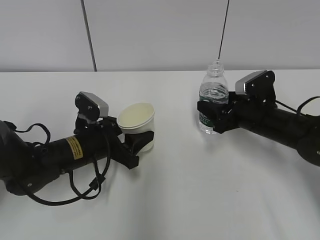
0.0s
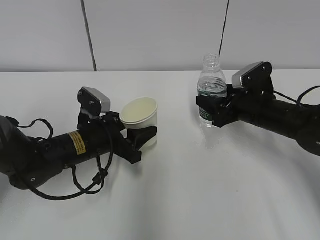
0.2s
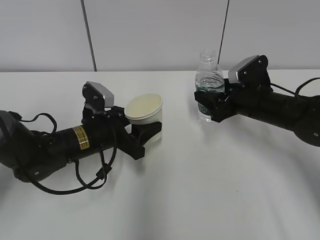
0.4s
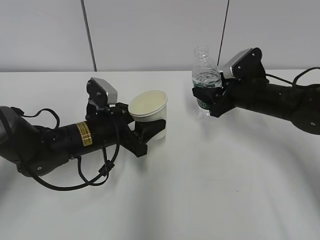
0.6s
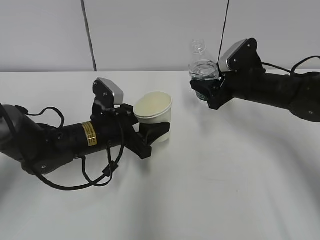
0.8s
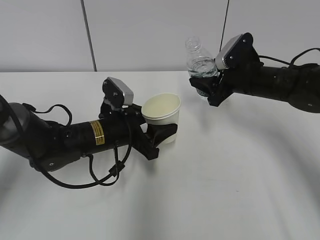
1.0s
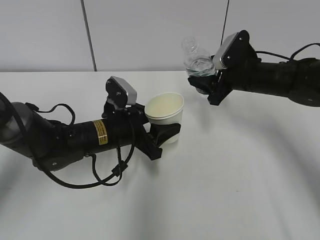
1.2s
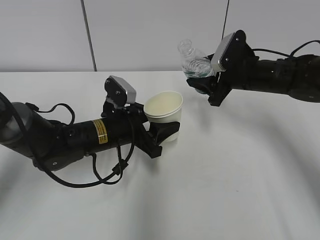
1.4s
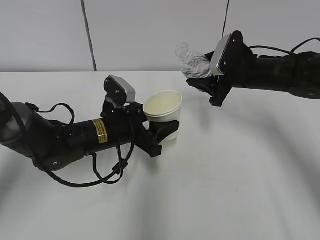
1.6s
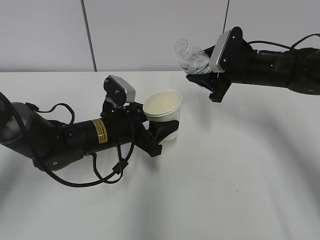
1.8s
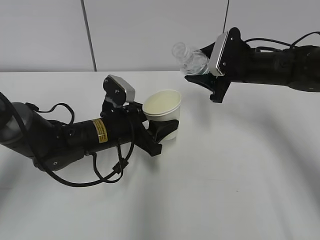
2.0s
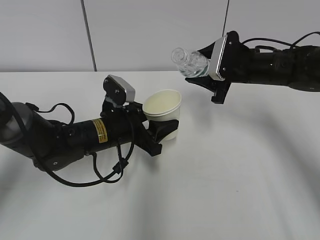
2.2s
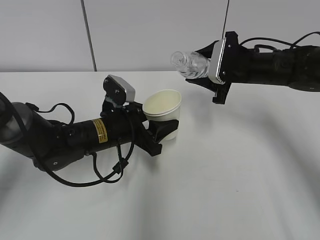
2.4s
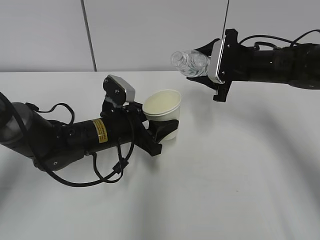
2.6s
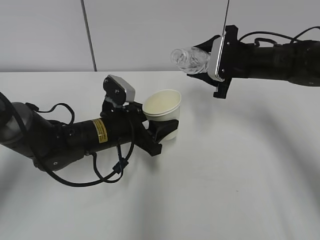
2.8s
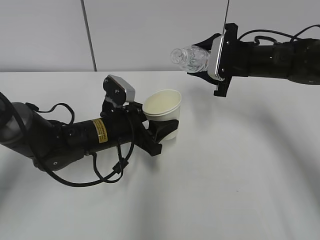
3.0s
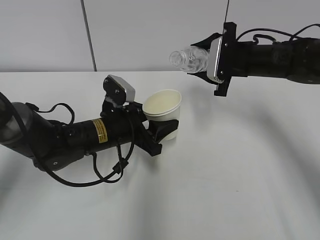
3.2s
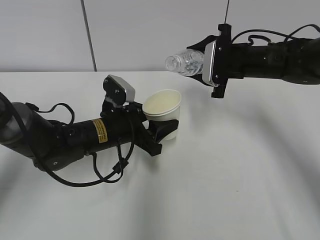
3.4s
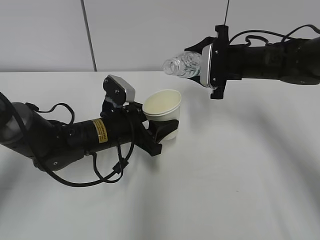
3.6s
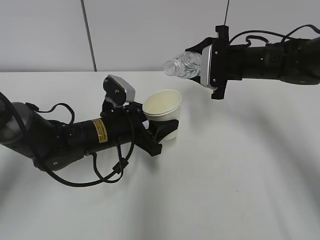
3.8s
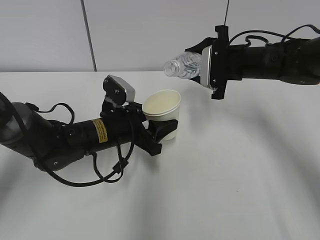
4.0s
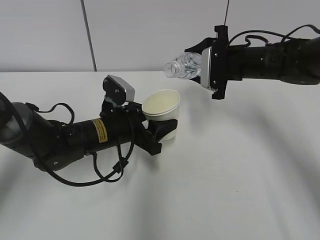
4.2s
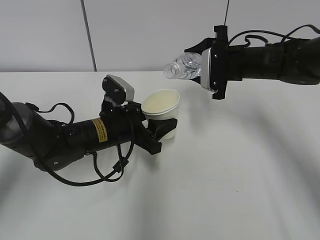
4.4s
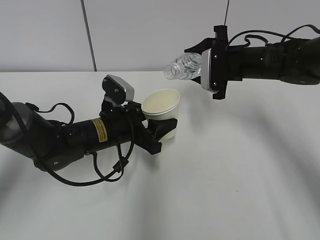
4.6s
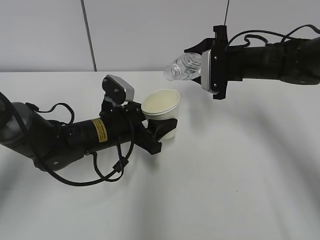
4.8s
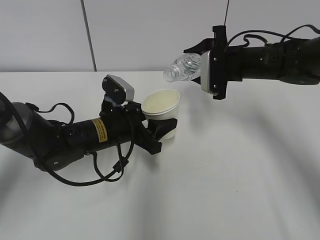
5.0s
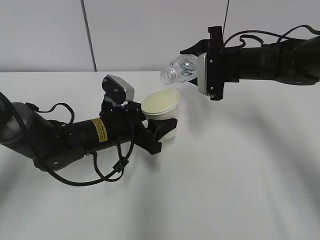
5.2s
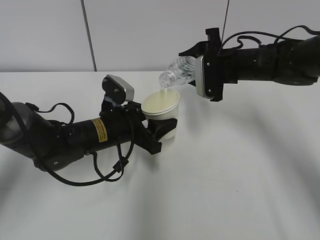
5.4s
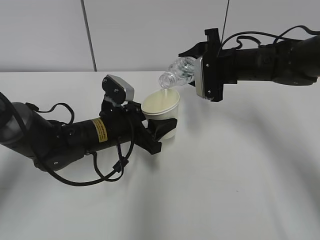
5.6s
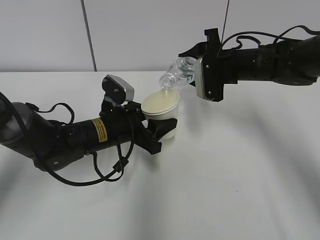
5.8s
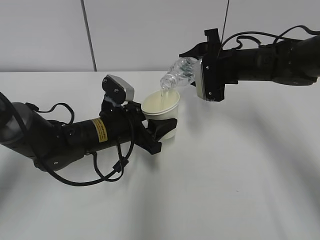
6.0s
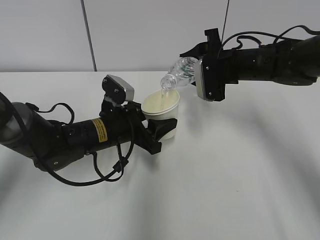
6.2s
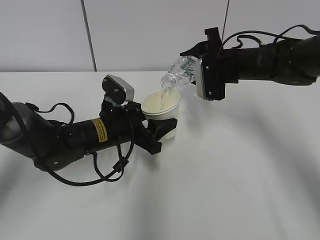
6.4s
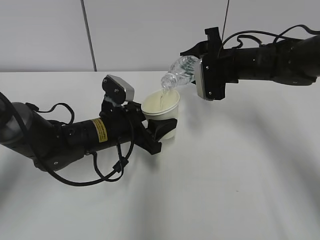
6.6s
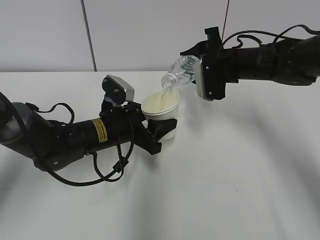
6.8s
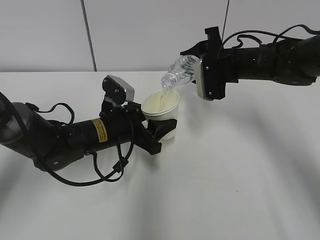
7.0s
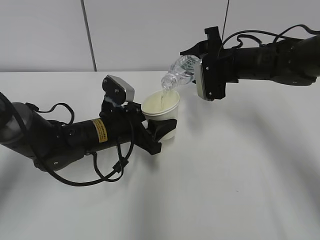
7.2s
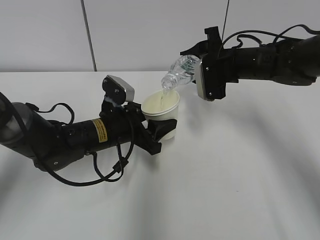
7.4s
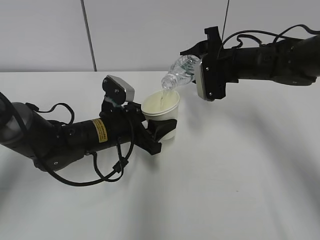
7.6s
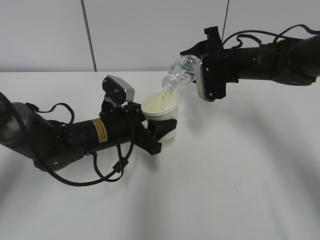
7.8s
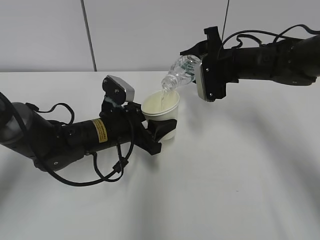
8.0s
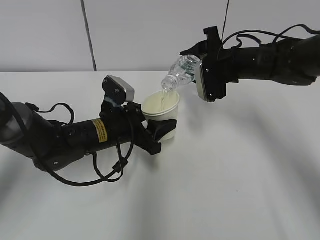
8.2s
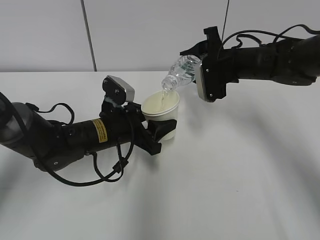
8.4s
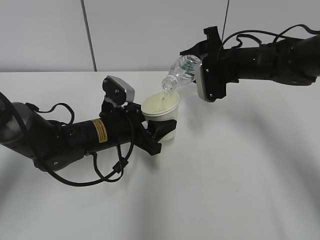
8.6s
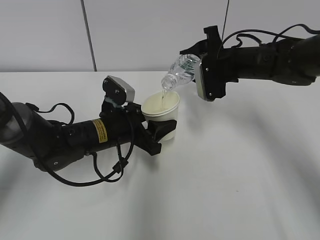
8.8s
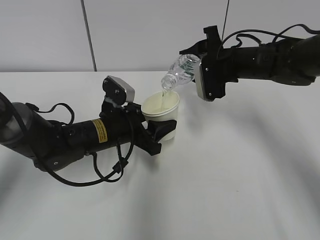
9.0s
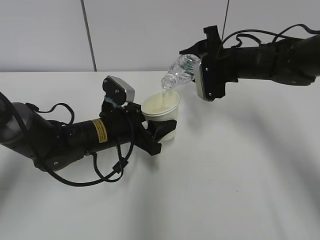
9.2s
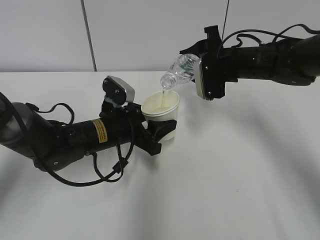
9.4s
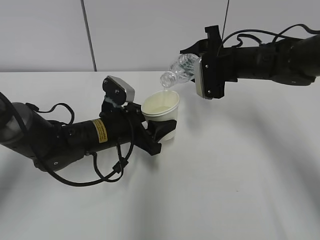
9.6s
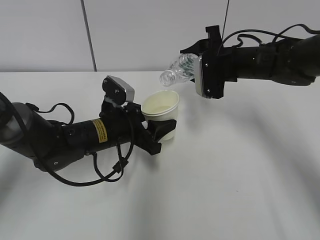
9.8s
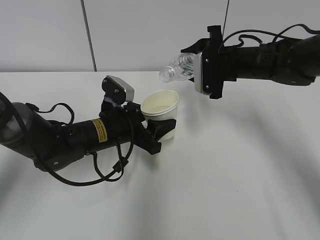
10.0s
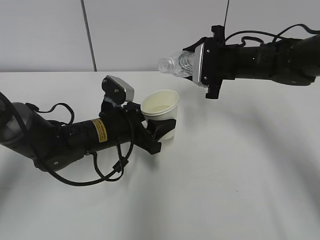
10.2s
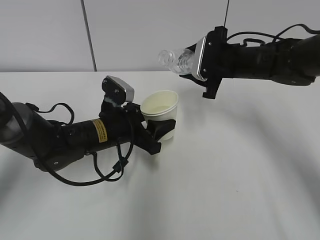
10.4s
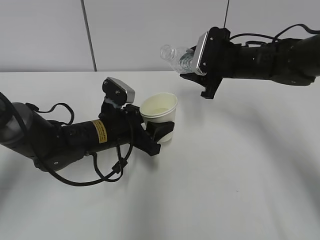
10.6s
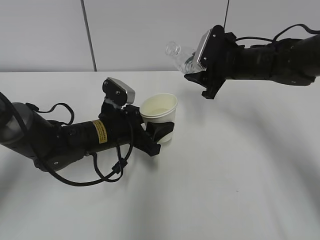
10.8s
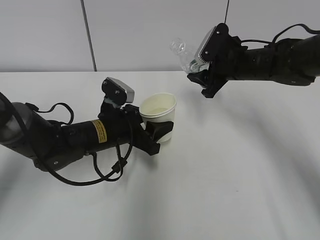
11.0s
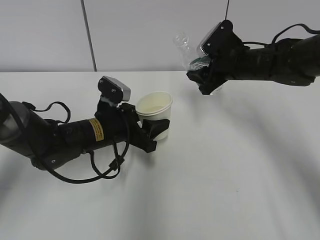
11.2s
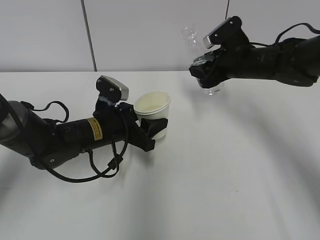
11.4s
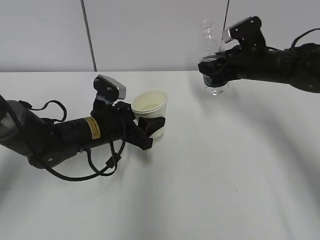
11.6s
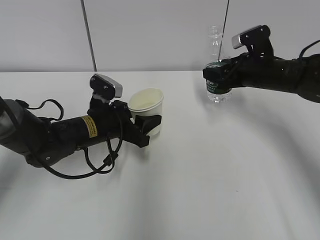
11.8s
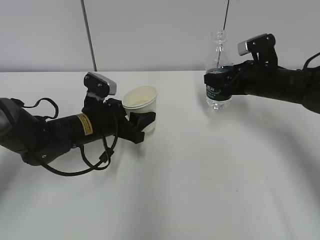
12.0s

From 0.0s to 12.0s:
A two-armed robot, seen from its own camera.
Step, from 0.0s to 2.2s: Lift the paper cup with the left hand.
Step, from 2.4s to 6.0s: Pour water with the right hand.
Step, from 6.2s to 7.6s: Collect water with the right hand.
Step, from 7.8s to 12.0s: Place the paper cup with the left hand.
From 0.0s to 1.6s: The left gripper changes place by about 5 cm, while the right gripper heads upward and forward, covering some 10 cm.
From 3.0s to 4.4s: There are only small adjustments of the grippers.
From 4.4s to 6.0s: The grippers make only small movements.
From 6.0s to 7.6s: The two grippers keep their place.
From 7.6s to 9.0s: Neither gripper changes place.
From 10.4s to 12.0s: The right gripper travels to the right by roughly 5 cm.

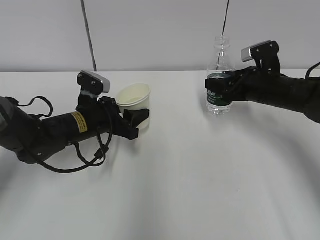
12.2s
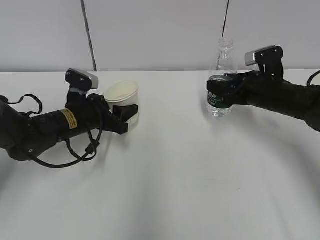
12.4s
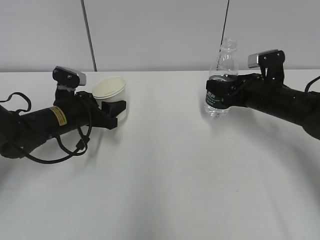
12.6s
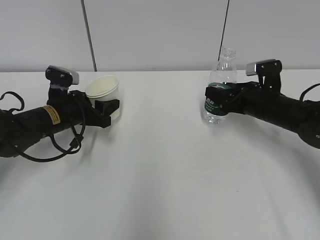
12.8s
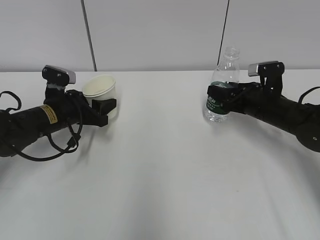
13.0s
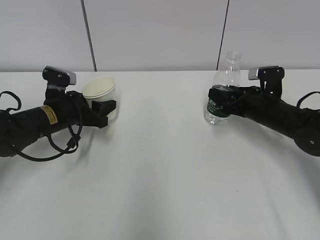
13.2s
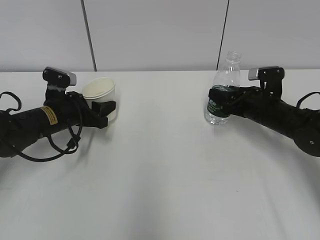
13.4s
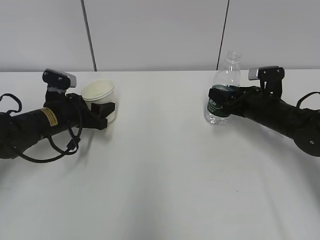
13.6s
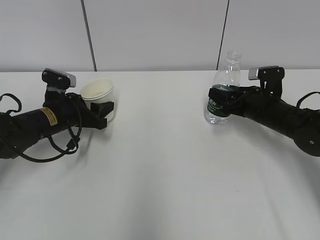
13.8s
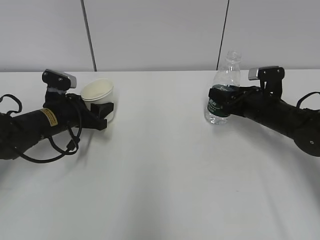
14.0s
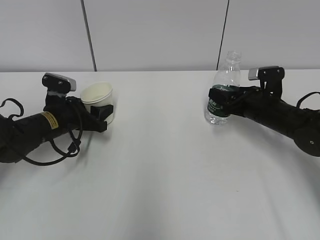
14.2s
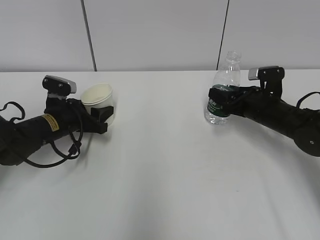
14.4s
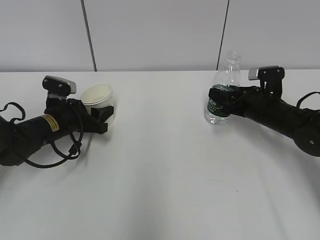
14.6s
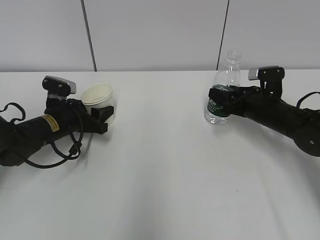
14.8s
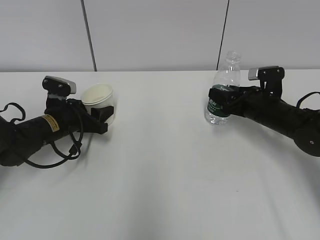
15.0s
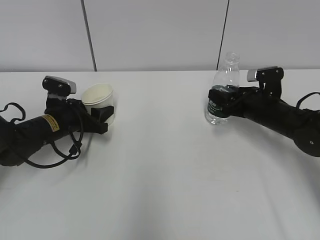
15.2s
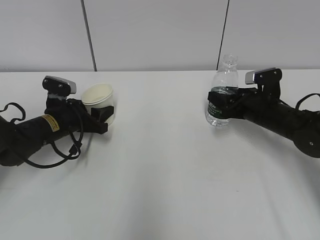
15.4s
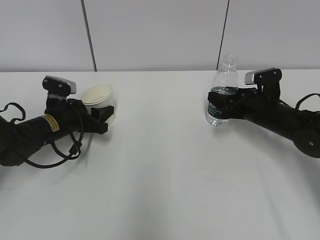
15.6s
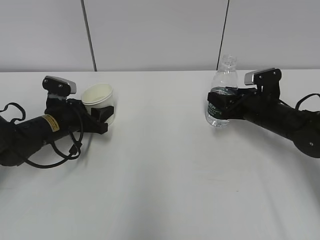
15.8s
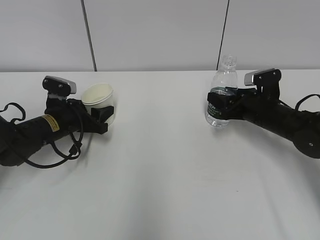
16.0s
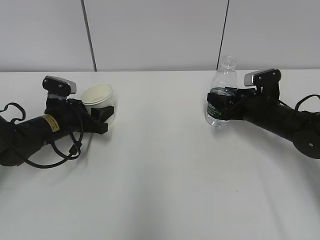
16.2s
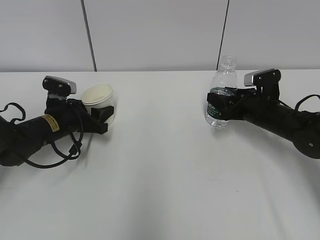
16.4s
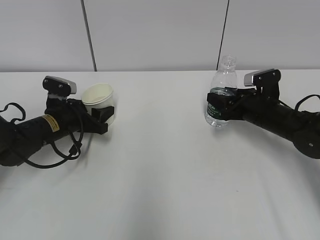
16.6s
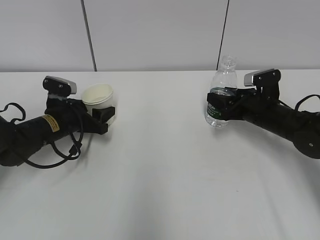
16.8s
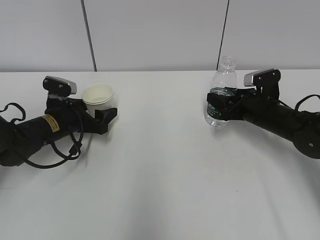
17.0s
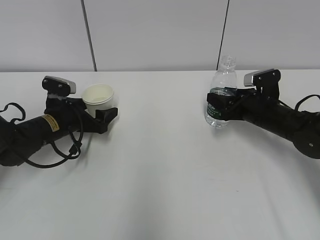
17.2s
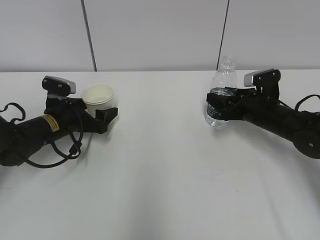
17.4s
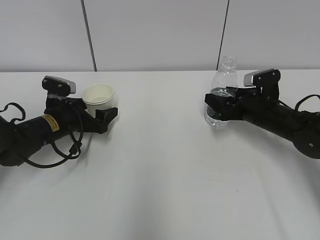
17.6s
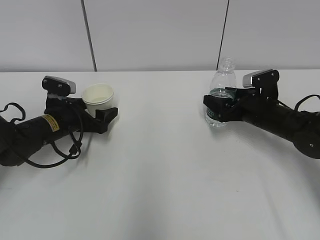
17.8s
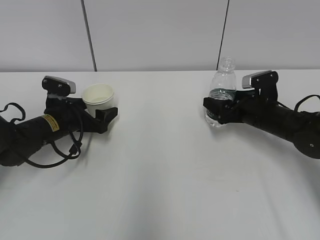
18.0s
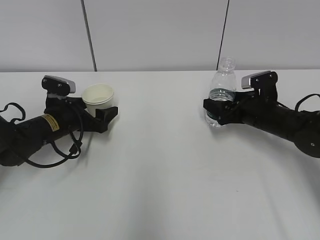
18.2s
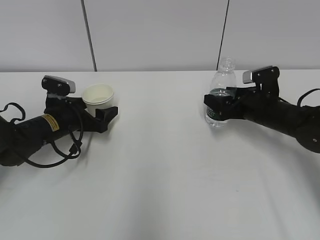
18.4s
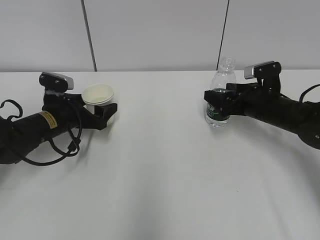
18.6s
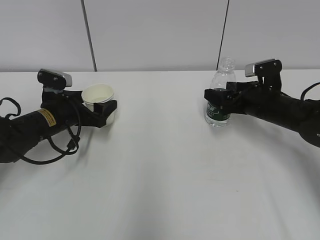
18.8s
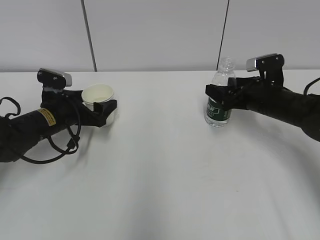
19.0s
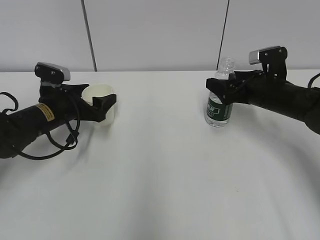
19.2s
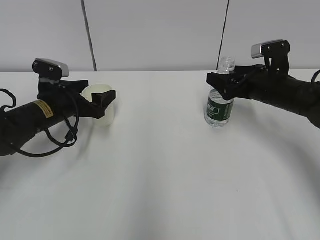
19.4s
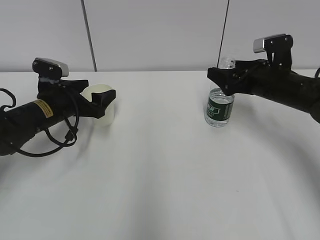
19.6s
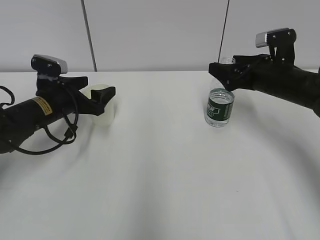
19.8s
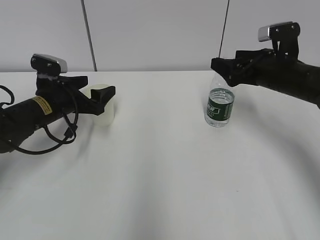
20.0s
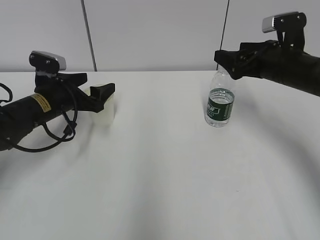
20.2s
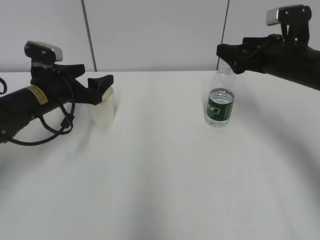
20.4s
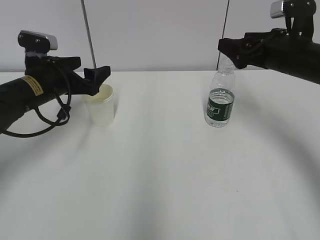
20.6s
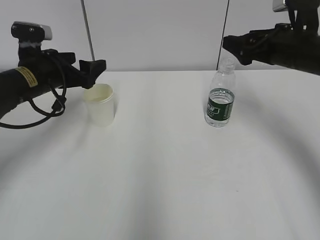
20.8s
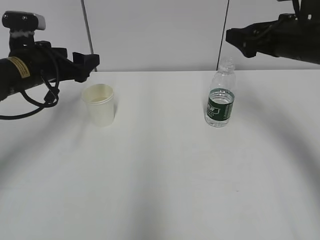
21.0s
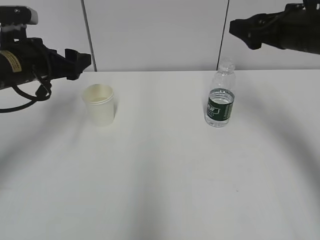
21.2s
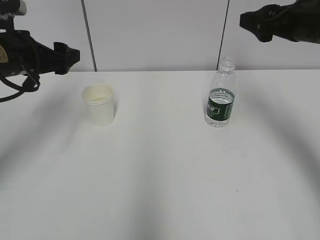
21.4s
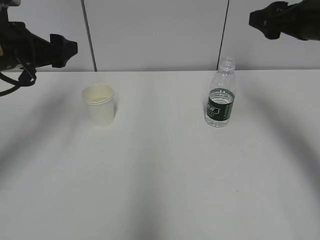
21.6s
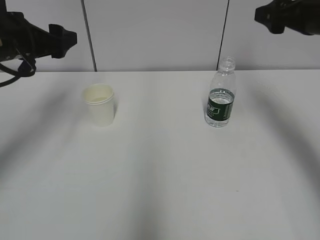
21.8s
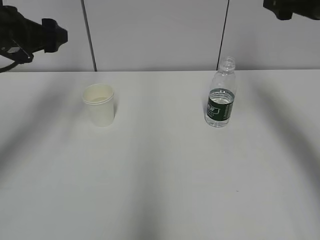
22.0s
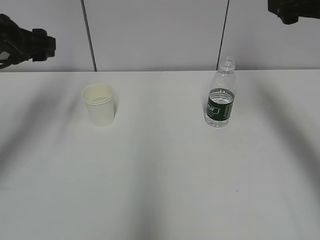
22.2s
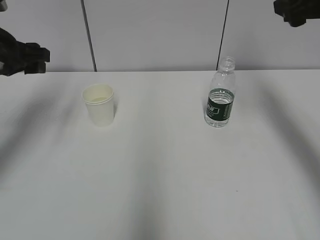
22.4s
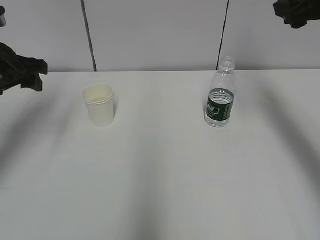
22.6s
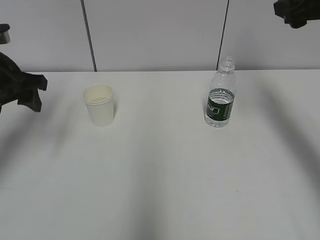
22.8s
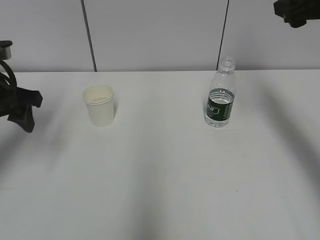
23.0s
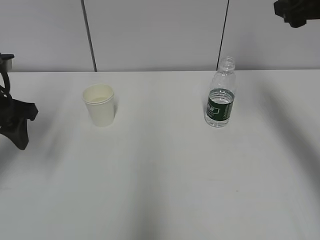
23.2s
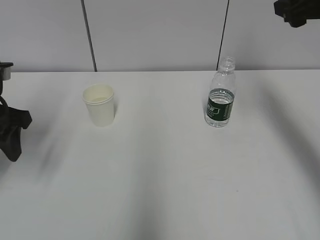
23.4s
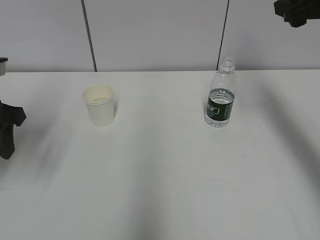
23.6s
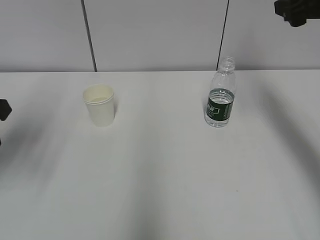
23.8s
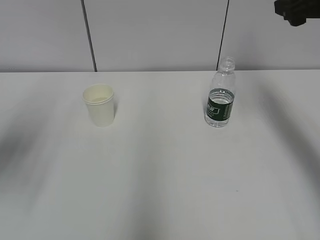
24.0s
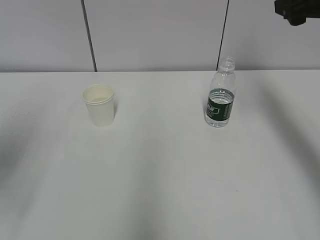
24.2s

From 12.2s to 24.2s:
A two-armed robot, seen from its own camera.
Step, from 12.2s to 12.6s: Place the water bottle with the right hand.
From 12.2s to 13.8s: The left gripper heads to the left, covering approximately 5 cm. Meanwhile the right gripper goes approximately 5 cm downward.
From 13.8s to 15.2s: The grippers make only small movements.
From 15.2s to 16.6s: Both grippers stay about where they are.
From 16.6s to 18.2s: The right gripper opens. Meanwhile the left gripper opens its fingers.
From 18.2s to 19.8s: The right gripper heads upward, covering about 10 cm.
From 19.8s to 21.2s: The grippers both shift upward by roughly 10 cm.
From 21.2s to 22.6s: The left gripper changes place by approximately 5 cm, while the right gripper travels upward by some 5 cm.
From 22.6s to 24.2s: The left gripper shifts some 15 cm backward, and closes.
